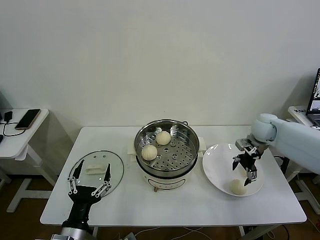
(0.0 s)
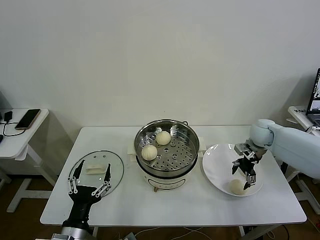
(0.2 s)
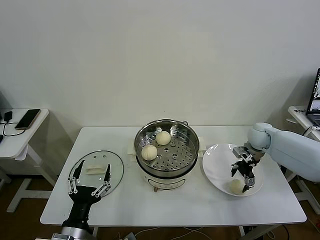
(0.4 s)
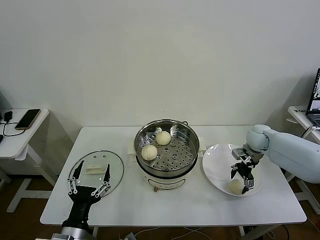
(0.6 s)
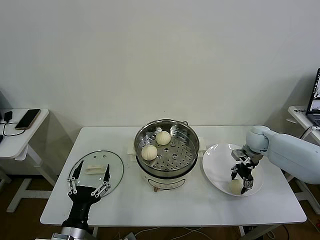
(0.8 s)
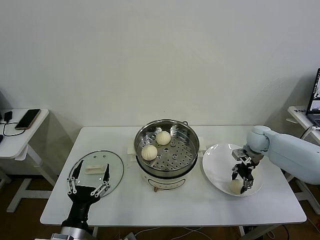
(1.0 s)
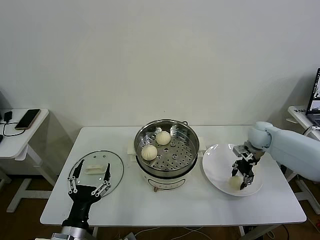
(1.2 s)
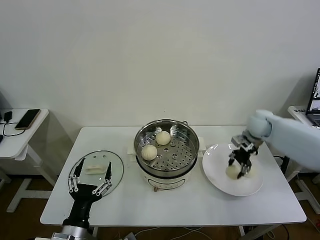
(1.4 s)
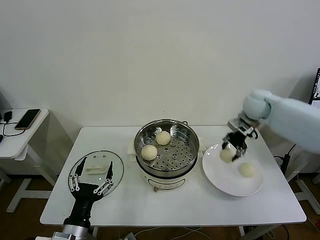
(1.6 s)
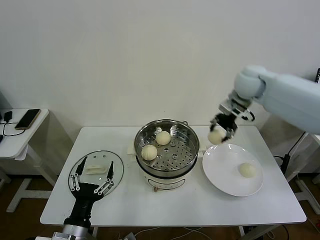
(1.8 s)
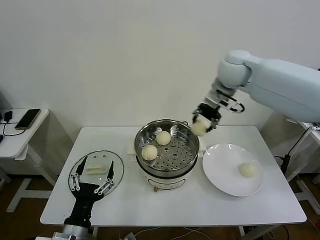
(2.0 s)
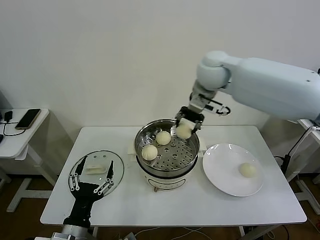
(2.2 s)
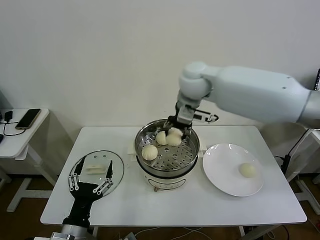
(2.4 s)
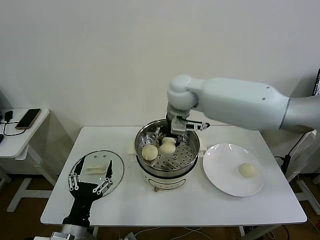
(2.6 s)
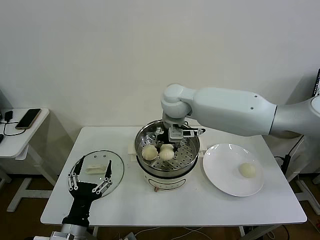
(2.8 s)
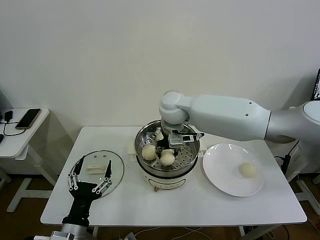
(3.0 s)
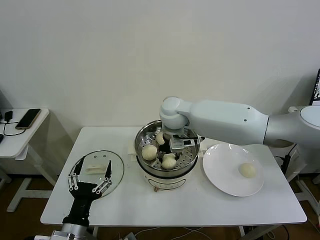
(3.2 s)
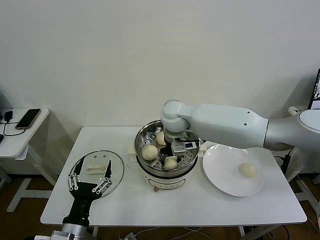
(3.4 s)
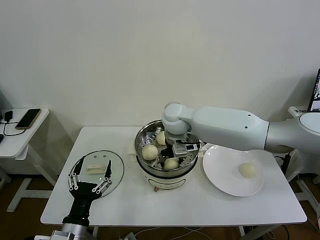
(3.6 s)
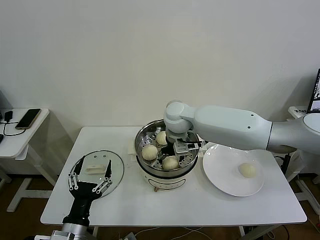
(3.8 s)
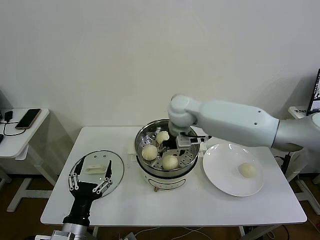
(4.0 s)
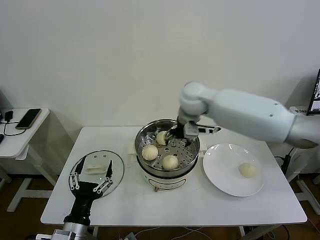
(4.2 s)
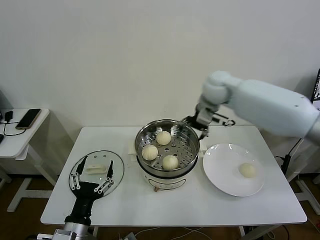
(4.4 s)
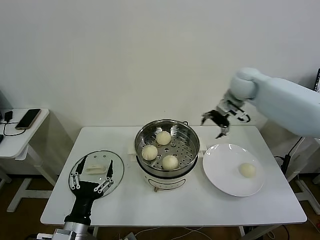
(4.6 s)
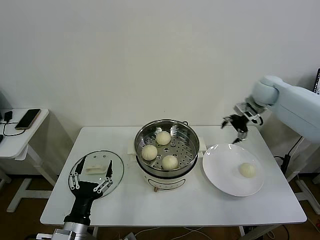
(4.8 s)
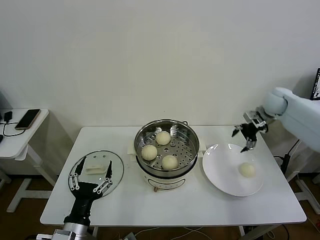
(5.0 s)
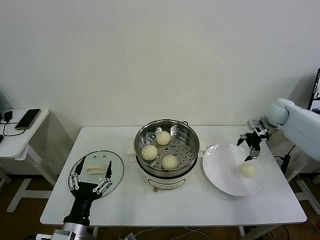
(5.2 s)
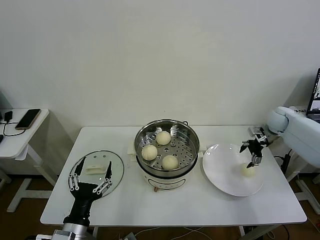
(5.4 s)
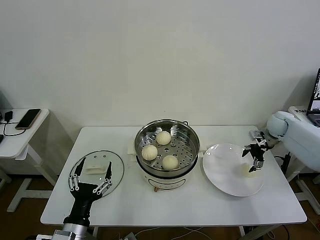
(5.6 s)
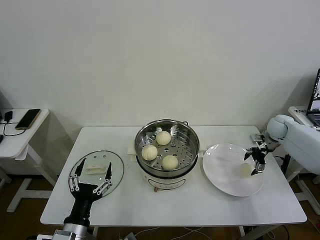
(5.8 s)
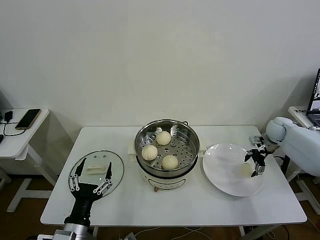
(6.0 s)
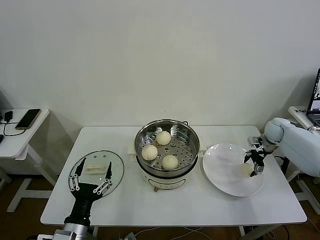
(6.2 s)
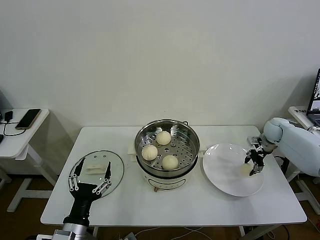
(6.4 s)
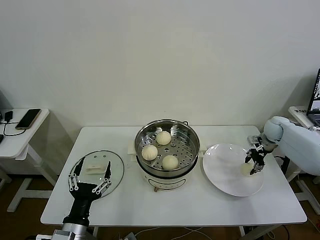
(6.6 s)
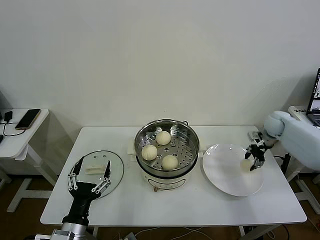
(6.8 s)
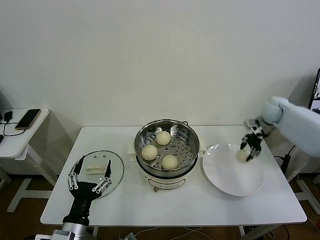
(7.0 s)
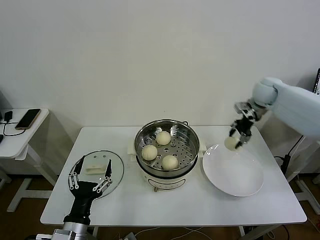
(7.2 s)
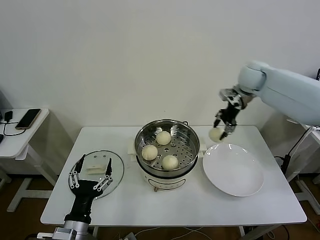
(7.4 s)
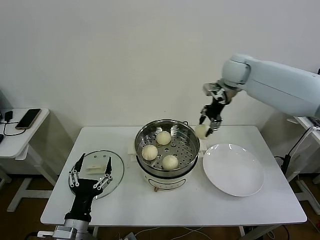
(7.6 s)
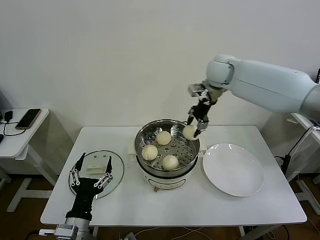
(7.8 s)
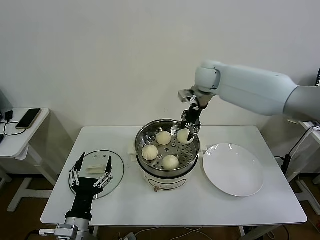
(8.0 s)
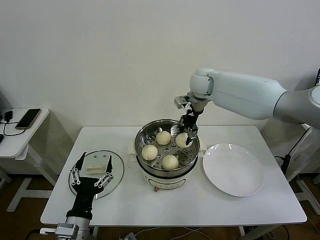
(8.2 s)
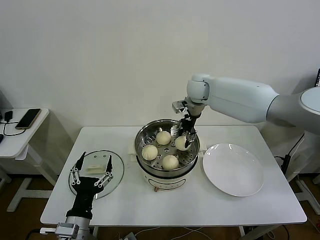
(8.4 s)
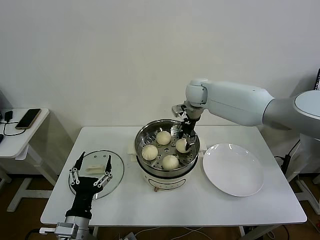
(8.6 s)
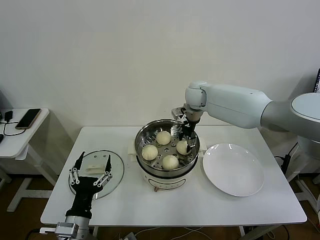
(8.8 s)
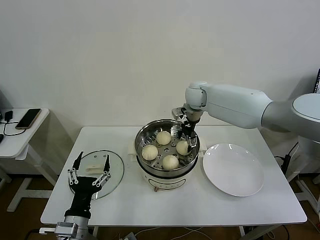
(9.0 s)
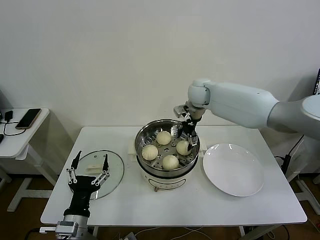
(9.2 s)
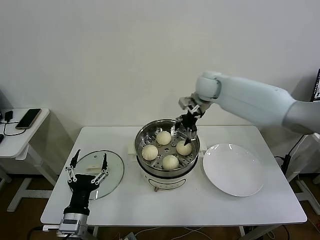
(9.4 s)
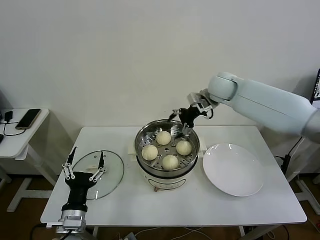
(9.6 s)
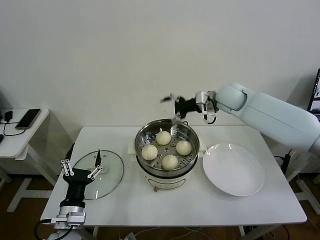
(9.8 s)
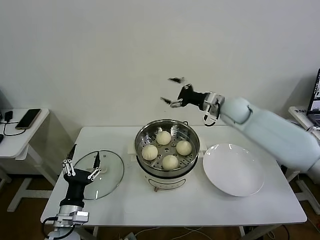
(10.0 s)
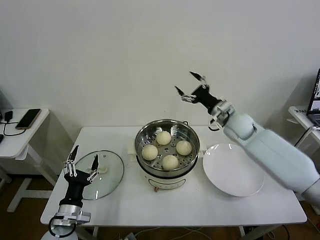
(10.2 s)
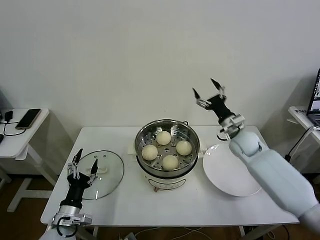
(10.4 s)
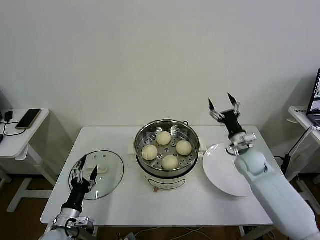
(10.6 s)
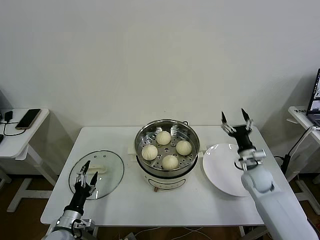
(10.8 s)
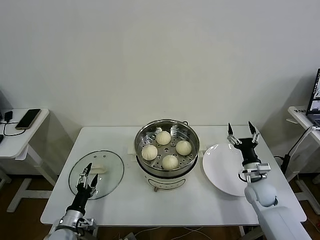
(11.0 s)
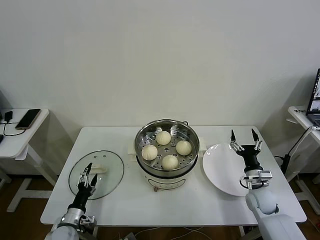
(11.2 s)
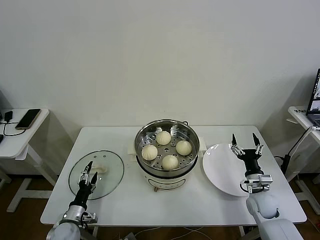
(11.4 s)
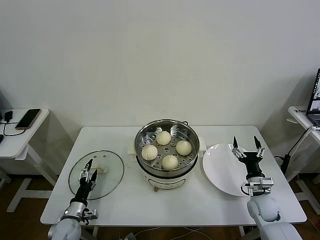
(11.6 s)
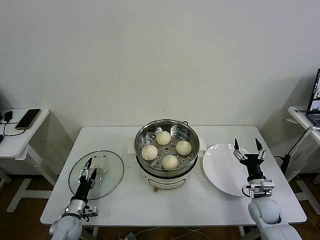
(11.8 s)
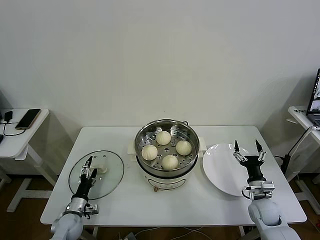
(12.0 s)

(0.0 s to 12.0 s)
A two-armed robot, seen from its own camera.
Task of the whole recording: take steamed baozi put them in steamer then cover it.
Step, 1.0 s - 3.8 s: Place the baozi on the steamer with right gripper.
Step, 4.0 s - 6.4 s: Grasp the baozi in the plate with right gripper.
Step, 6.6 s - 9.2 s: Place the baozi on the steamer with right gripper.
0.0 s - 1.6 s: The right gripper heads upward and to the left, covering roughly 15 cm, and closes its fingers.
1.6 s - 3.0 s: The right gripper shifts some 30 cm to the left.
3.0 s - 4.4 s: The right gripper goes approximately 15 cm to the right, and opens.
4.4 s - 6.0 s: The right gripper heads to the right and downward, covering some 35 cm.
6.0 s - 7.6 s: The right gripper is displaced to the left and upward by some 35 cm, and closes up.
7.6 s - 9.0 s: The right gripper travels to the left and downward by approximately 15 cm, and opens.
9.0 s - 10.4 s: The right gripper goes about 25 cm to the right, downward and backward, while the left gripper shifts about 10 cm to the left and downward.
10.4 s - 12.0 s: The left gripper is displaced downward and forward by roughly 15 cm. Meanwhile the right gripper goes roughly 25 cm backward, downward and to the right.

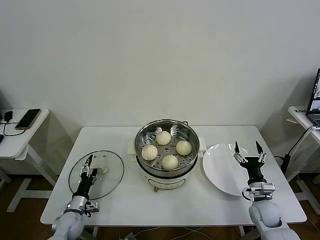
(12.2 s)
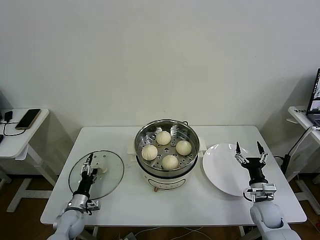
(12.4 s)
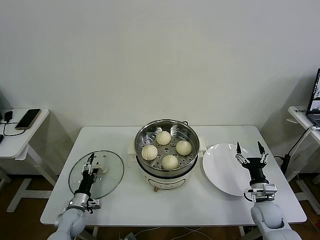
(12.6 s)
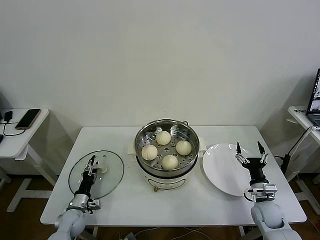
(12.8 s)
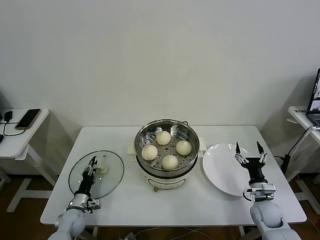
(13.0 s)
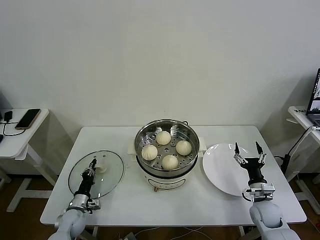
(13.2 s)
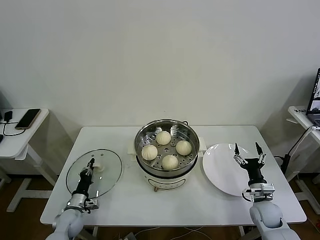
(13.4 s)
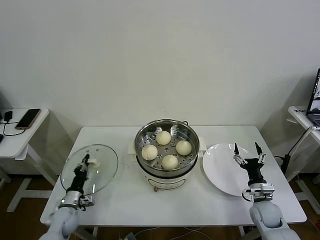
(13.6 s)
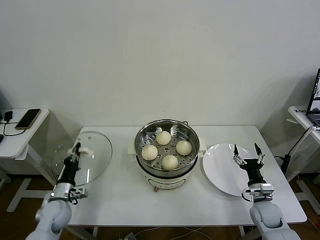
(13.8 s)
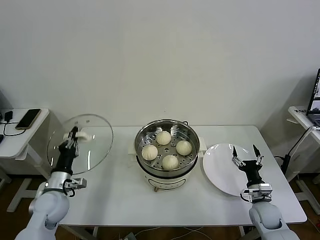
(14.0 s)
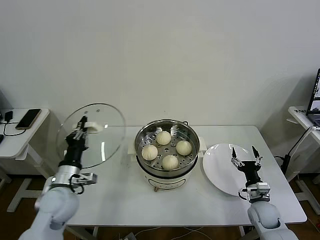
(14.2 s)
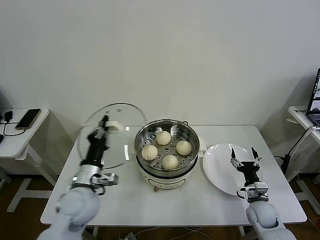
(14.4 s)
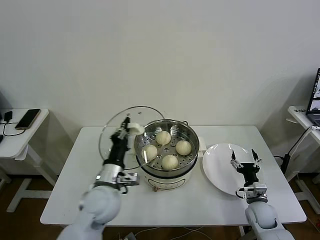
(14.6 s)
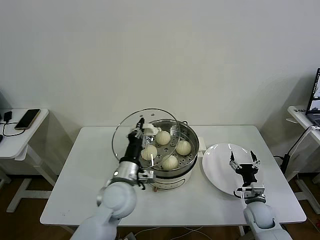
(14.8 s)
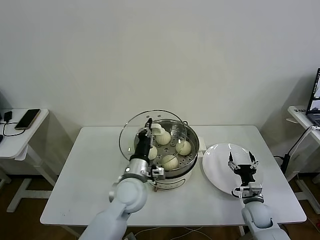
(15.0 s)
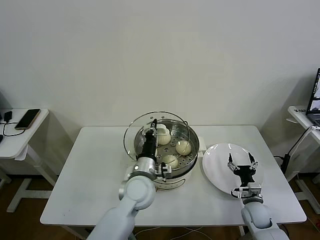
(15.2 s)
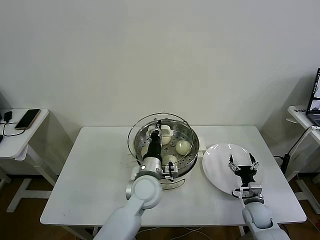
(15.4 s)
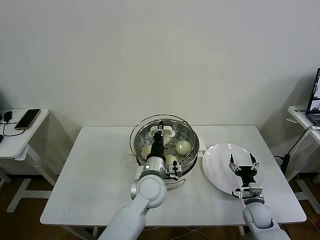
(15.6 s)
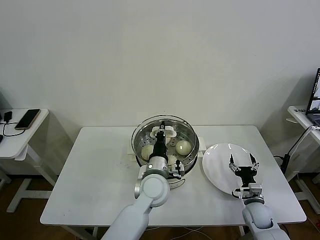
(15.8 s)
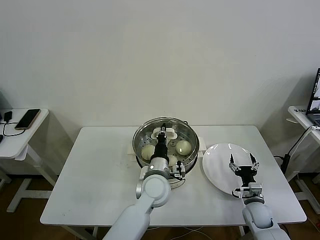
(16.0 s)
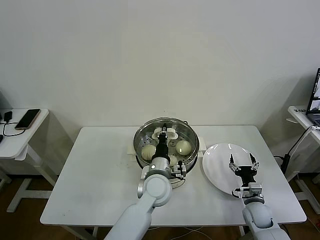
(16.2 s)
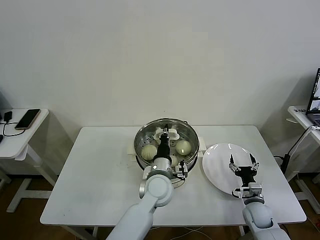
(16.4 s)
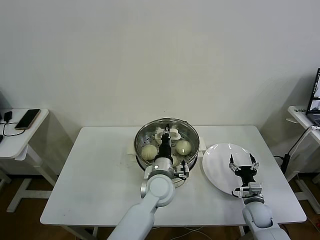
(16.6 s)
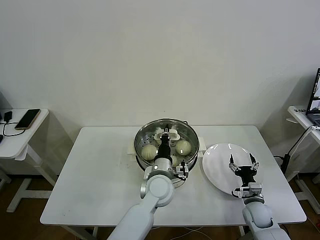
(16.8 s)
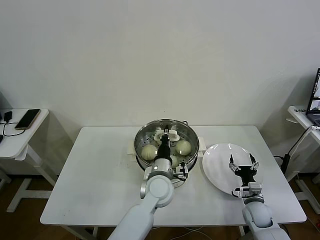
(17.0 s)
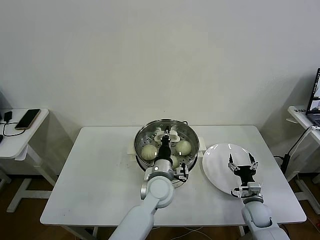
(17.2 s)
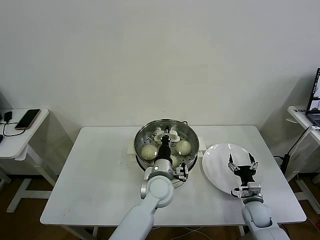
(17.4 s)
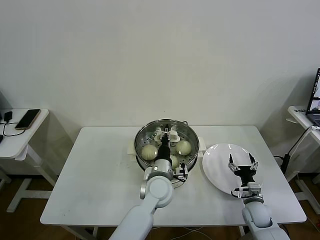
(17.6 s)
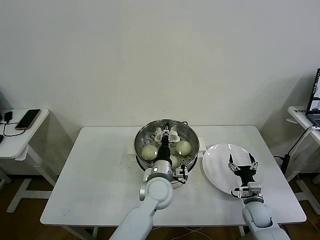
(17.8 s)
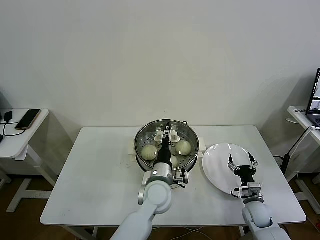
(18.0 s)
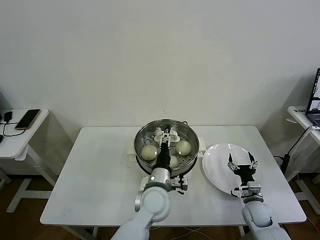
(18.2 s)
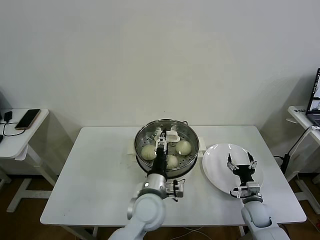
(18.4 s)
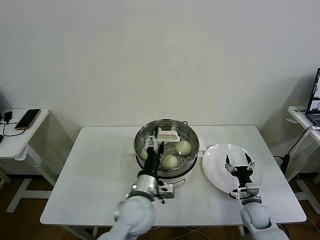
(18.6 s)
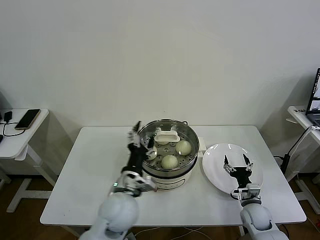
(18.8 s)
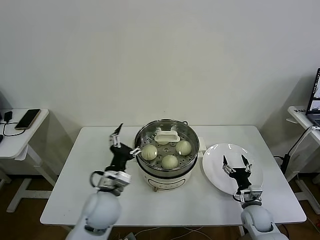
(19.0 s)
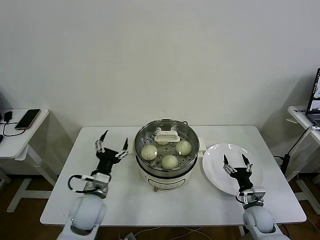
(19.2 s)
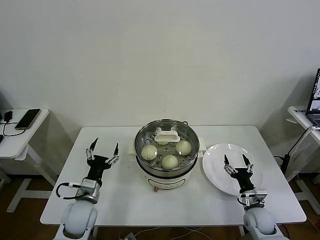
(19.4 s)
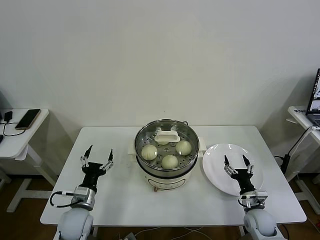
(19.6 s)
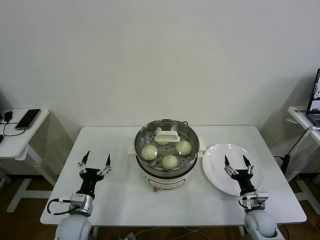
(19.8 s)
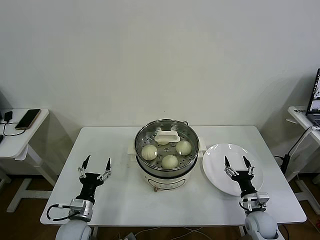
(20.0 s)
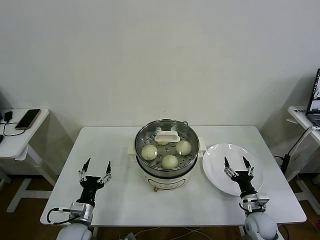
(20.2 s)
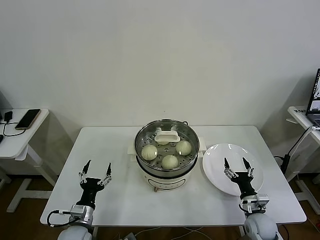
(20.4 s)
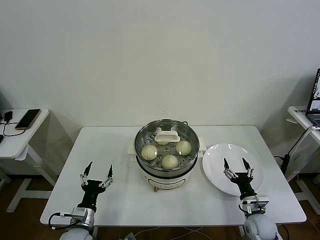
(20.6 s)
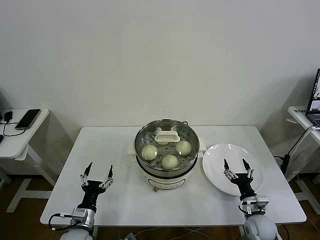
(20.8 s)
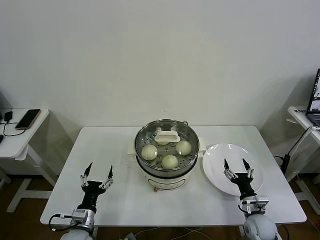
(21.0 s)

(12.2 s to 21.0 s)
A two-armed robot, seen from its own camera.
Task of the whole recording: take steamed baozi put them in steamer then cover it.
Step, 13.6 s - 18.4 s: Place the pot lid on the steamer with left gripper.
12.2 s - 13.6 s: The left gripper closes.
13.6 s - 15.2 s: The left gripper goes some 35 cm to the right and upward.
15.2 s - 16.6 s: The left gripper shifts approximately 5 cm to the right.
16.6 s - 18.0 s: The left gripper opens its fingers.
18.0 s - 19.6 s: The left gripper moves to the left, some 25 cm, and opens its fingers.
19.6 s - 21.0 s: The left gripper shifts roughly 10 cm backward and downward.
